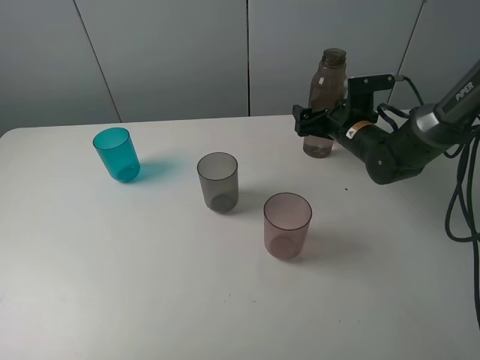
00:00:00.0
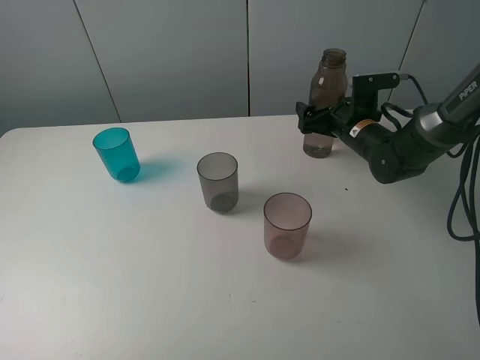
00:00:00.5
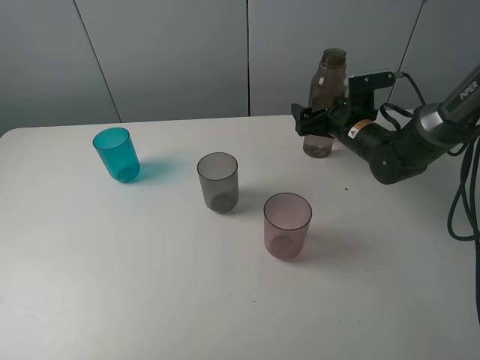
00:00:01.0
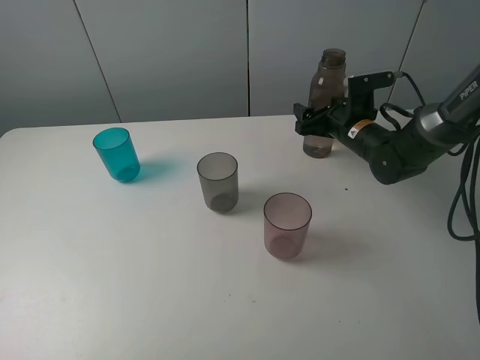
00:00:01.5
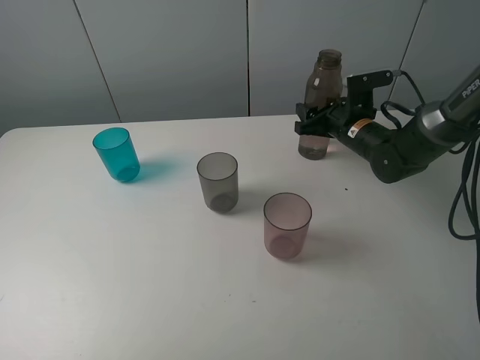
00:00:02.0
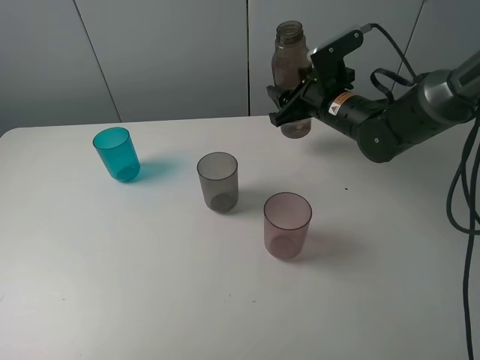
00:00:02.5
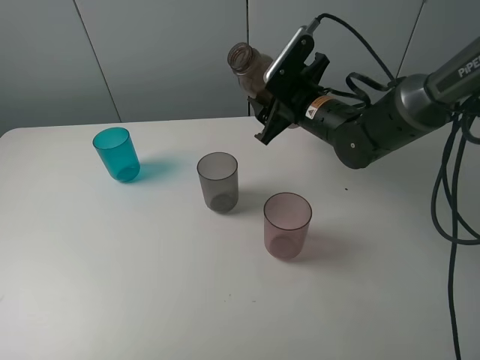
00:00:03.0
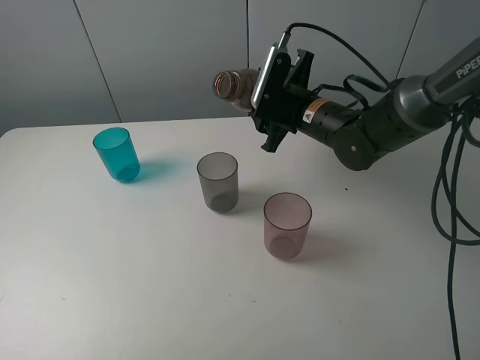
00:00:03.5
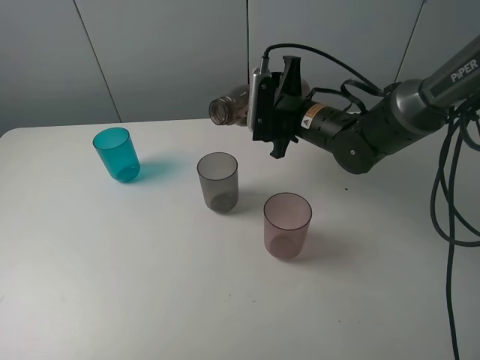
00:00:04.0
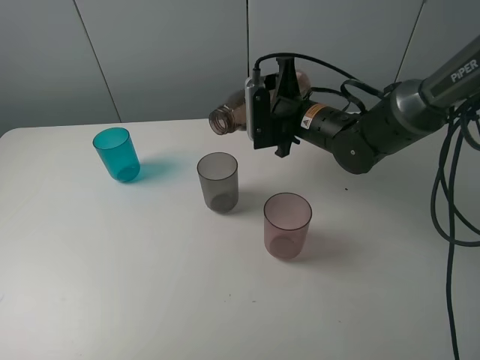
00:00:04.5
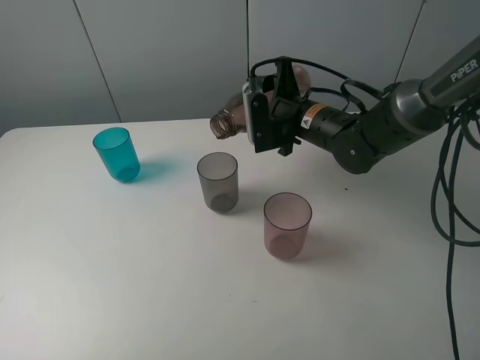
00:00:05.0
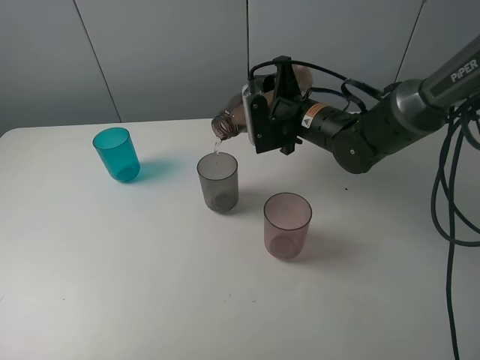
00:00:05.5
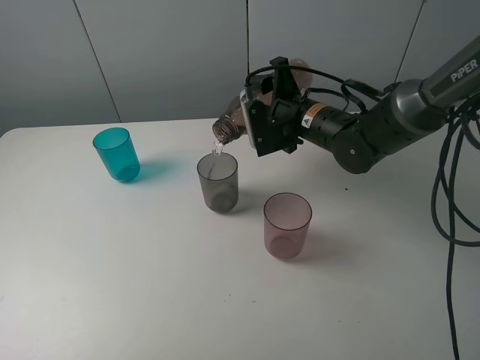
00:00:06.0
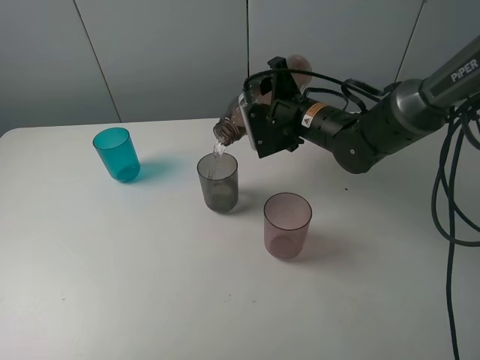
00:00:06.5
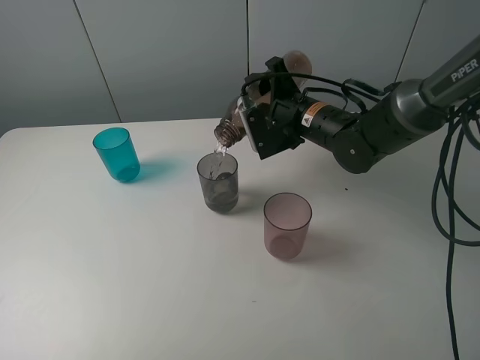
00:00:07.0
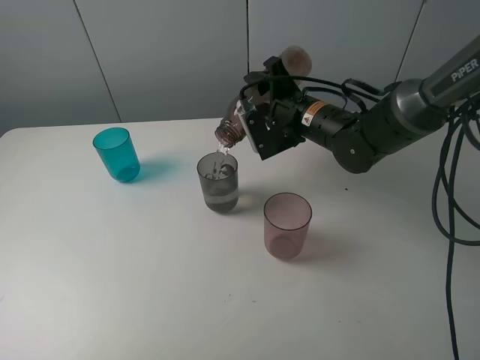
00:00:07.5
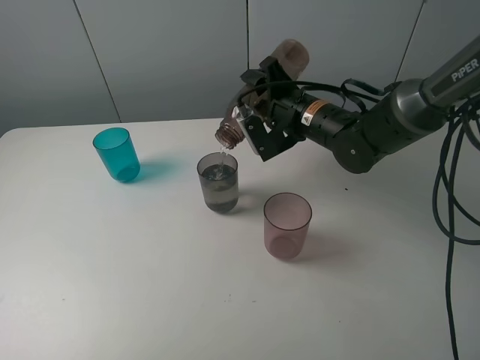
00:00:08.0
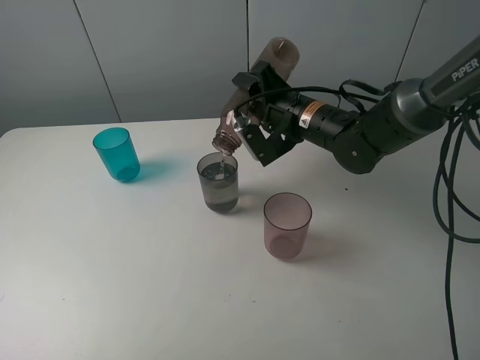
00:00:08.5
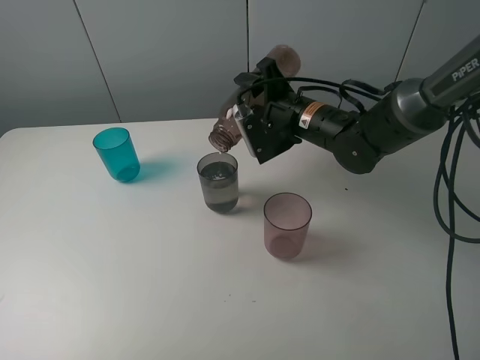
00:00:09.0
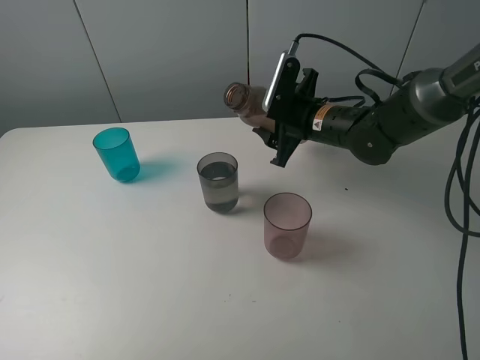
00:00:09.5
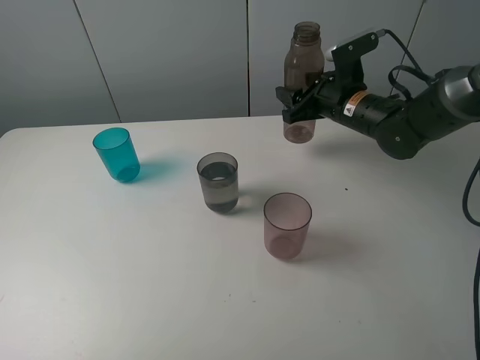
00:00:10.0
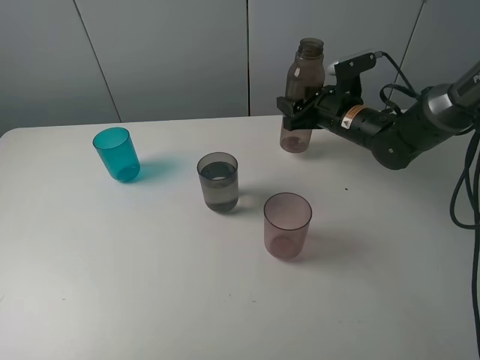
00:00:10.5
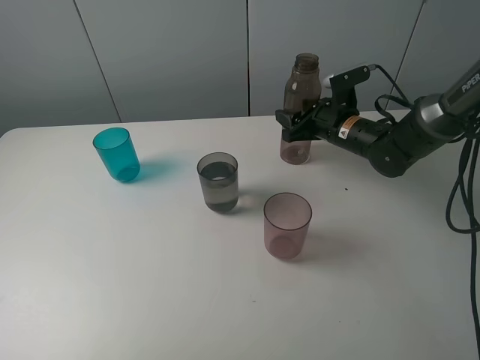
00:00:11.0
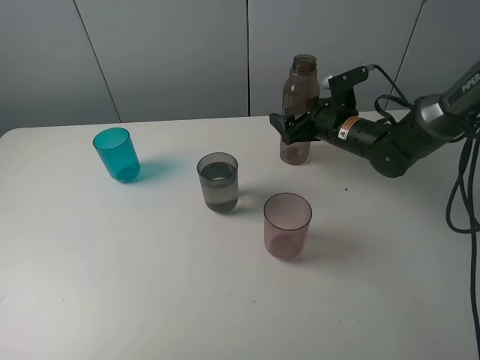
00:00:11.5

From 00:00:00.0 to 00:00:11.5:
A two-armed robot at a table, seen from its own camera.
Task of the whole recording: pick up the bottle filled with water and pour water into the middle cup of the three cups.
Step, from 00:00:00.0 to 00:00:02.0: Grasp the brown bottle with the right gripper.
Step, from 00:00:02.5 to 00:00:04.5: Pour water from transparent bottle to grey cup with the right gripper.
From 00:00:00.0 to 00:00:02.0: The right gripper closes.
From 00:00:02.0 to 00:00:04.0: The right gripper is displaced to the left by approximately 10 cm.
From 00:00:04.0 to 00:00:06.0: The grippers make only small movements.
From 00:00:06.0 to 00:00:07.5: The grippers make only small movements.
From 00:00:09.5 to 00:00:11.5: The right gripper shifts by roughly 5 cm, and opens up.

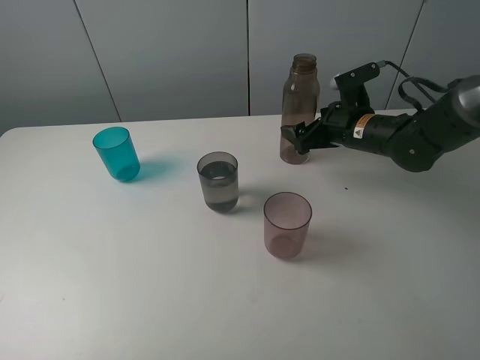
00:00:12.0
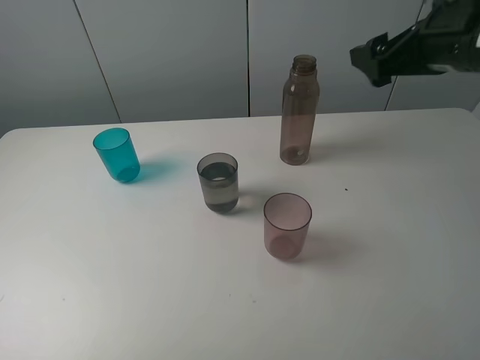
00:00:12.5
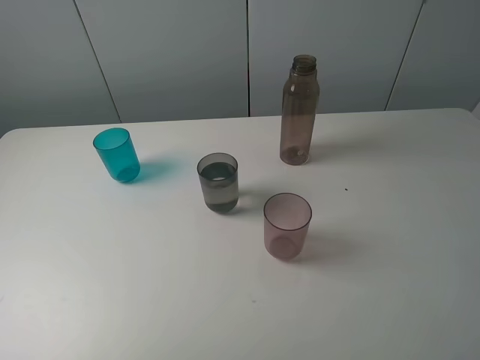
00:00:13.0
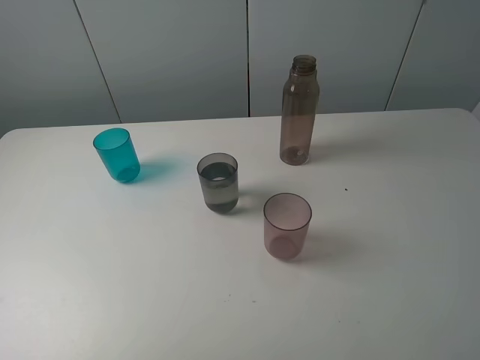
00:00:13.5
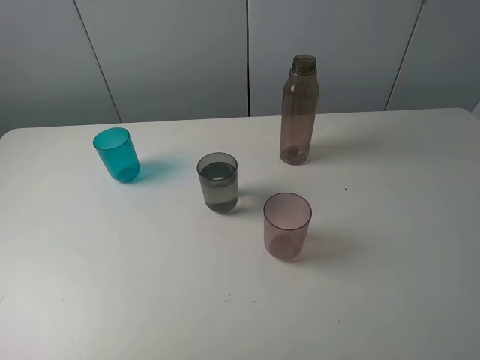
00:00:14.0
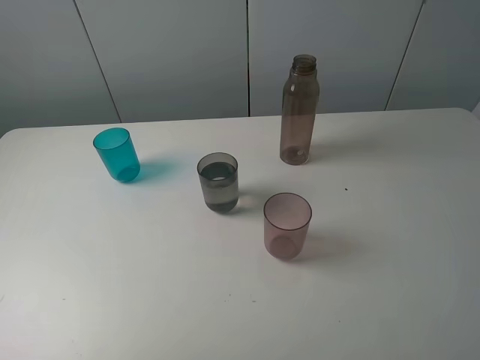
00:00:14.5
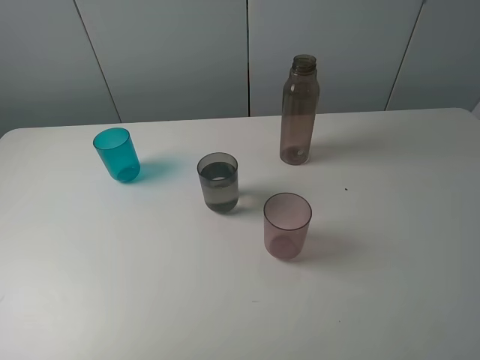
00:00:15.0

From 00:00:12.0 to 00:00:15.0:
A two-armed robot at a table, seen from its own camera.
Task of the whole recording: pick up the bottle filled with water and pour water into the middle cup of the three cups.
From 00:00:12.0 to 00:00:13.5: The right gripper goes about 40 cm backward and upward.
